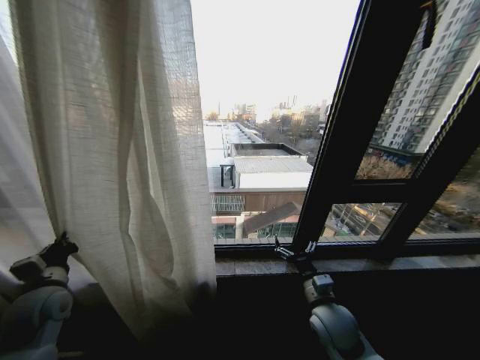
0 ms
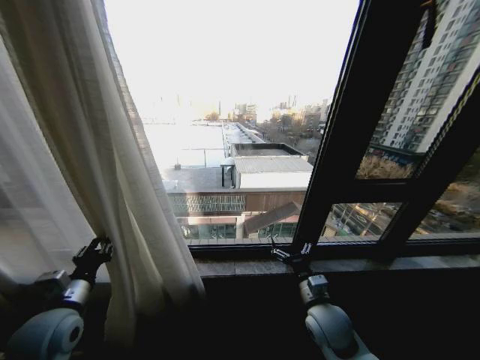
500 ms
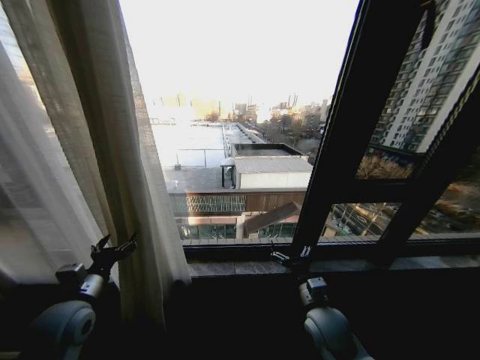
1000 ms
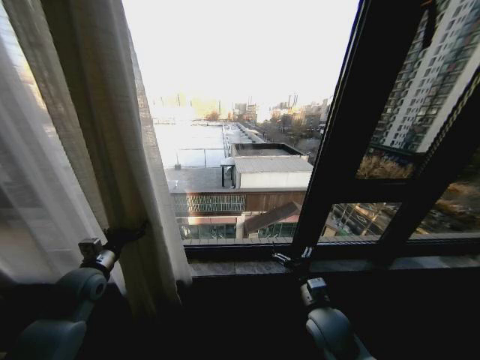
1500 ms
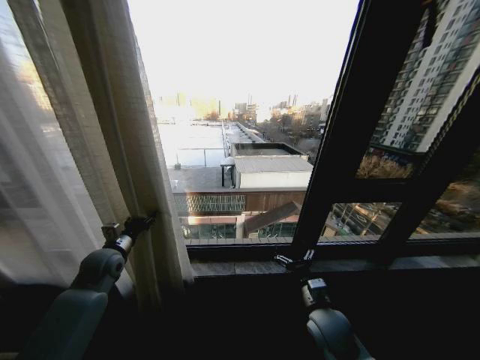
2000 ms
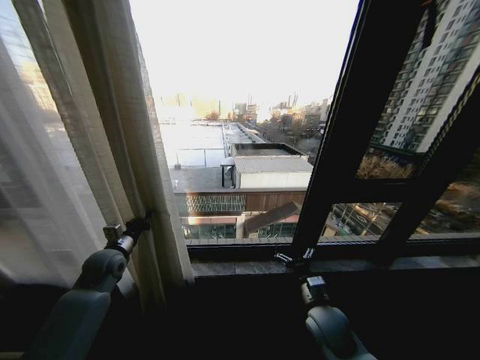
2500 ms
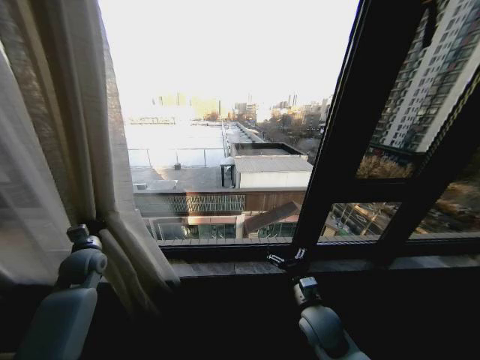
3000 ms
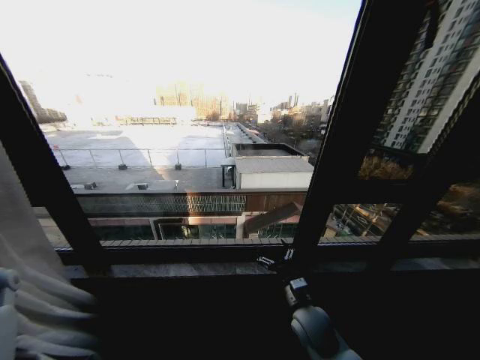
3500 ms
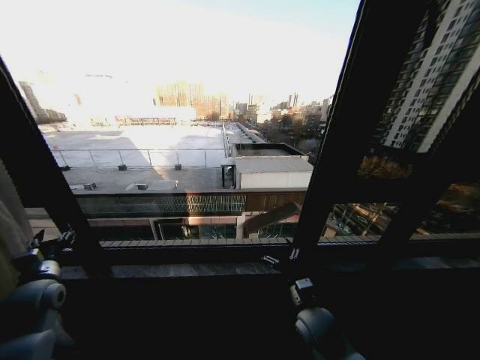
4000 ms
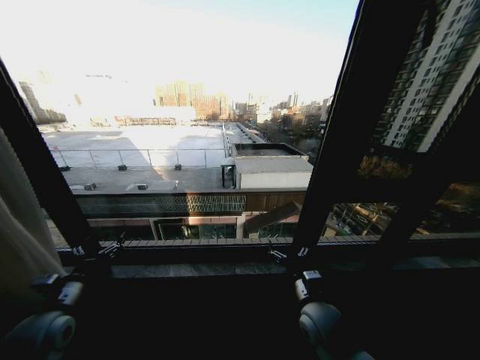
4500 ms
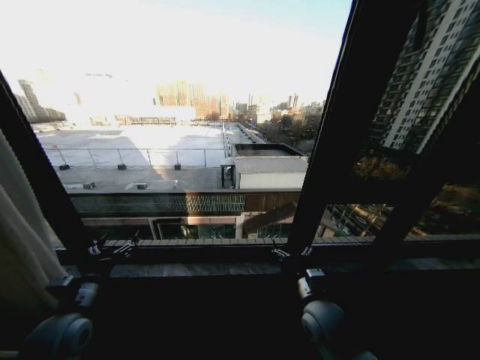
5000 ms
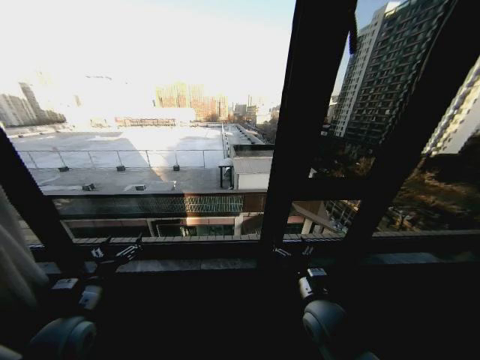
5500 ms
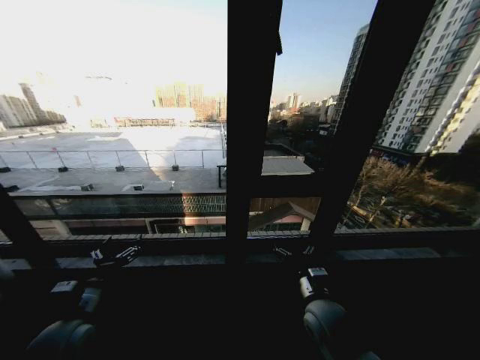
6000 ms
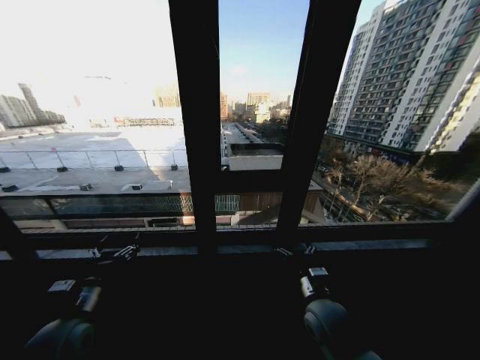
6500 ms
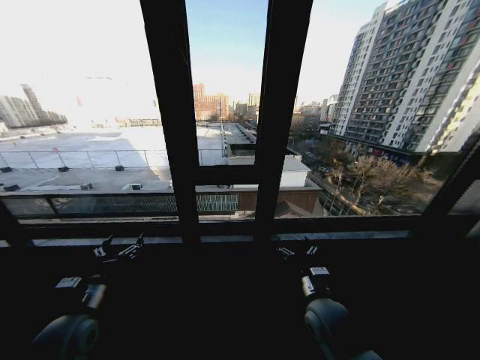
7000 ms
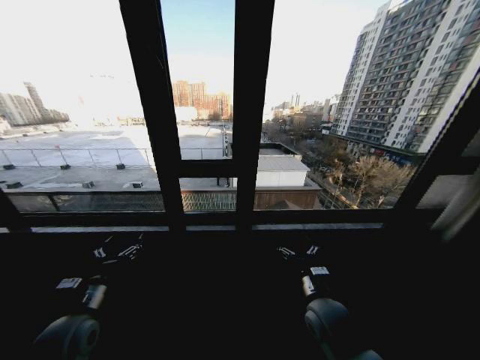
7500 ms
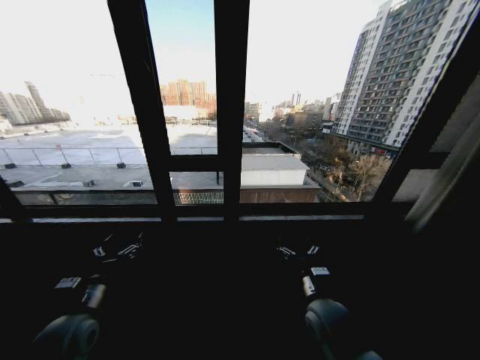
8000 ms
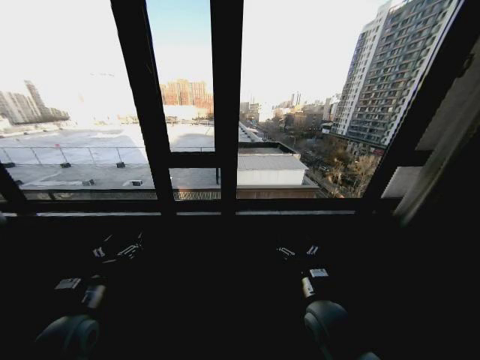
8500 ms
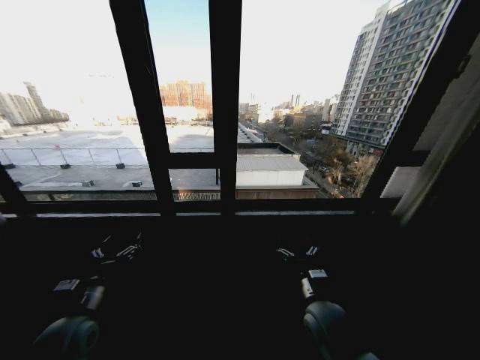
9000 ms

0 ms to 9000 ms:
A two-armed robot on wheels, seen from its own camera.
Task of the whole recording: Open the curtains by pulling them apart, changing their state from closed to fully open.
0 ms to 2000 ms: The left gripper travels forward and to the right by about 15 cm, and opens up.
2000 ms to 4500 ms: The left gripper shifts roughly 15 cm backward, moves approximately 25 cm to the left and comes back, and closes, then opens again.
4500 ms to 7000 ms: The left gripper shifts about 5 cm to the right.

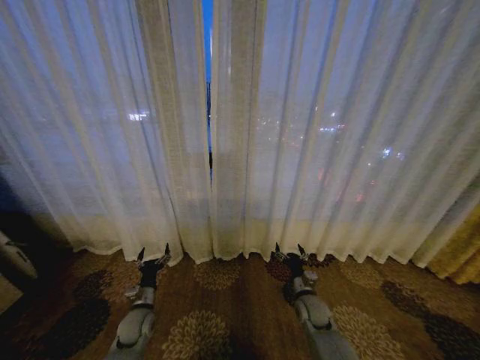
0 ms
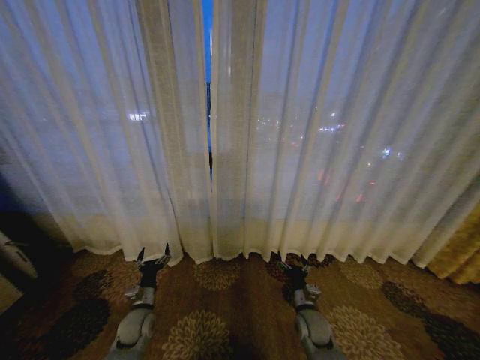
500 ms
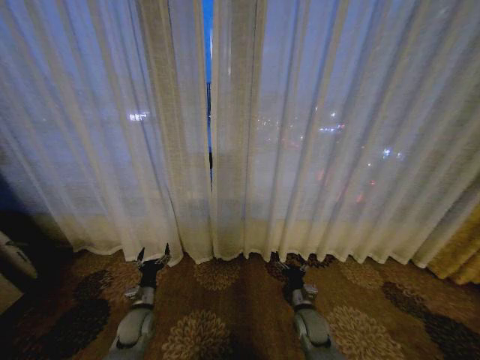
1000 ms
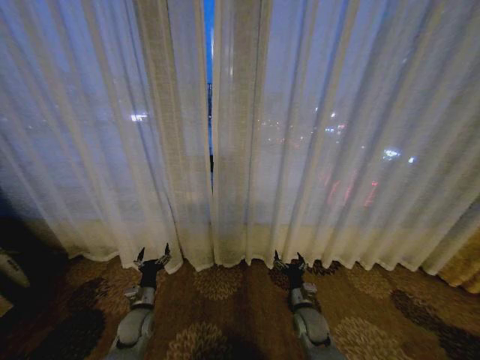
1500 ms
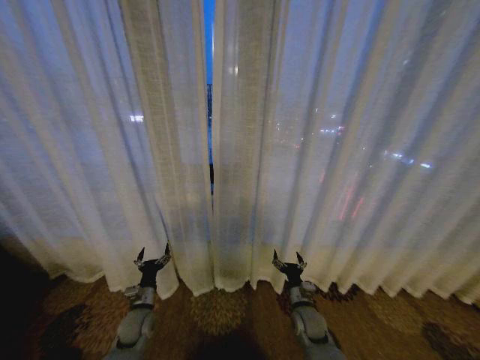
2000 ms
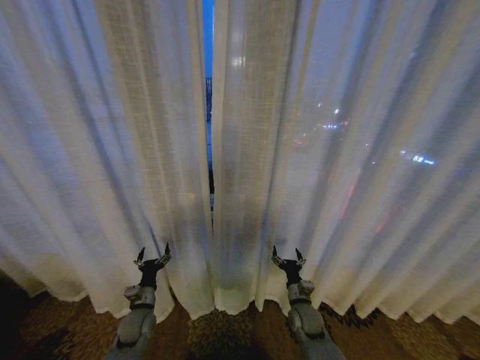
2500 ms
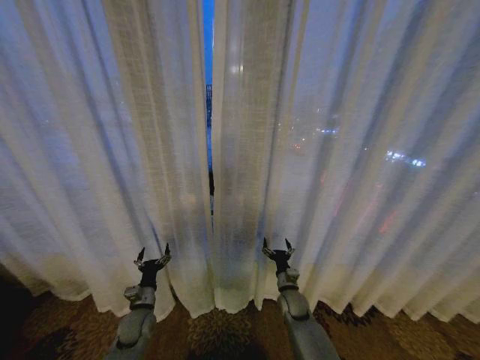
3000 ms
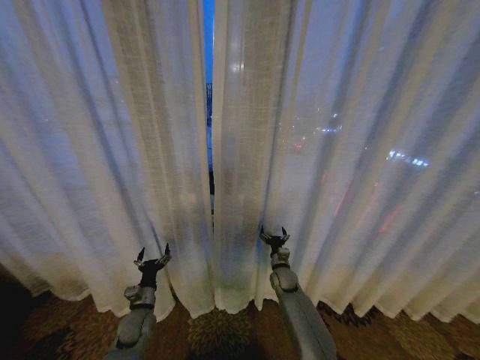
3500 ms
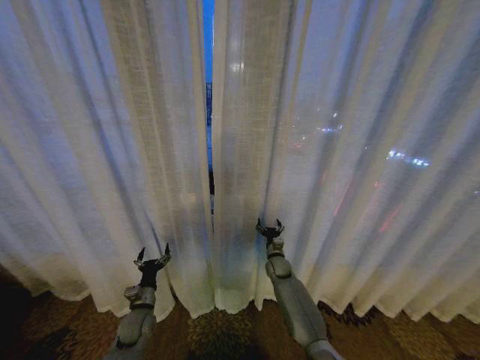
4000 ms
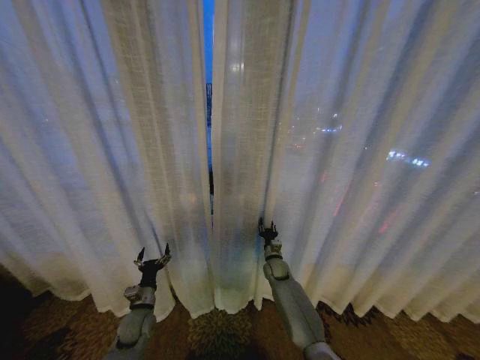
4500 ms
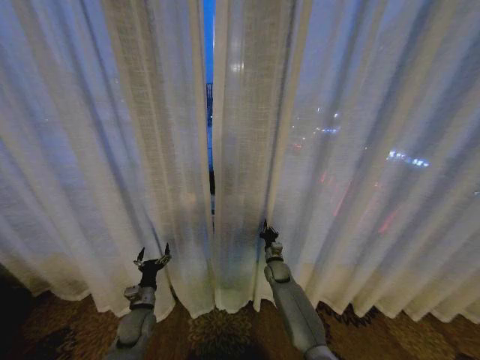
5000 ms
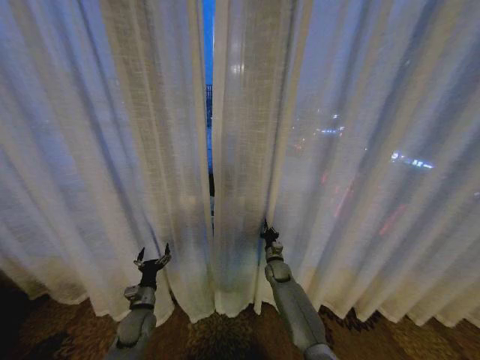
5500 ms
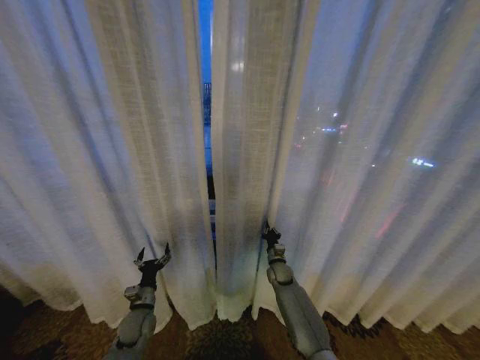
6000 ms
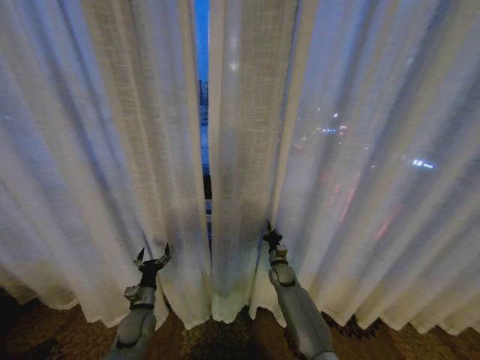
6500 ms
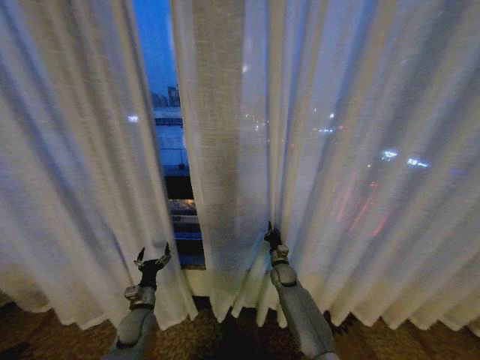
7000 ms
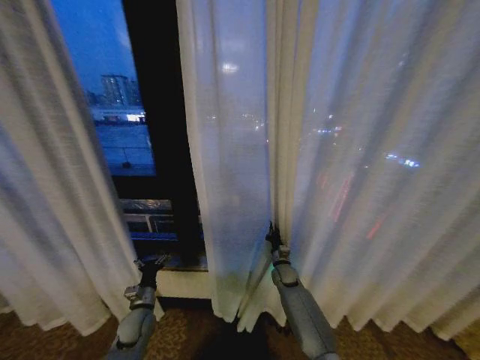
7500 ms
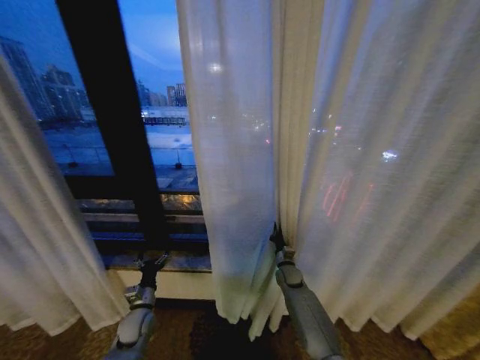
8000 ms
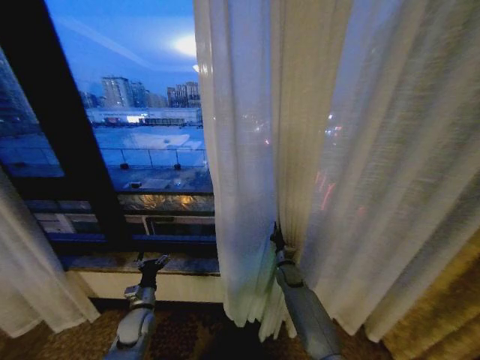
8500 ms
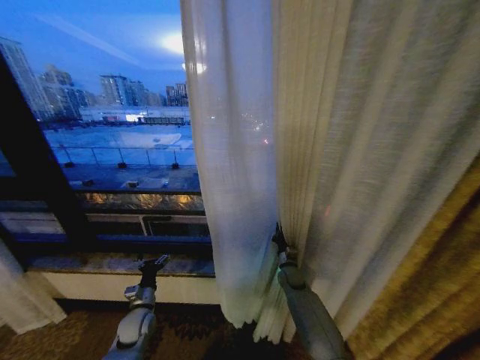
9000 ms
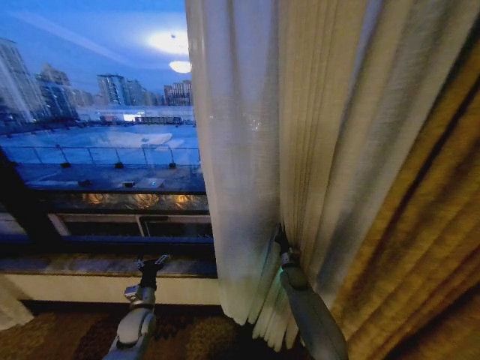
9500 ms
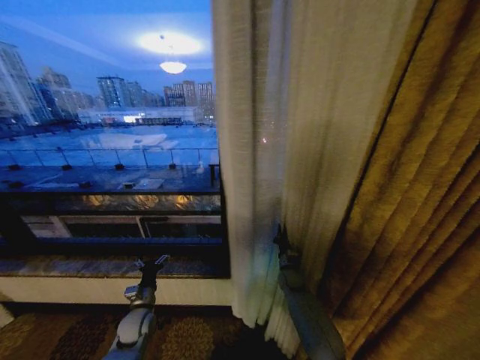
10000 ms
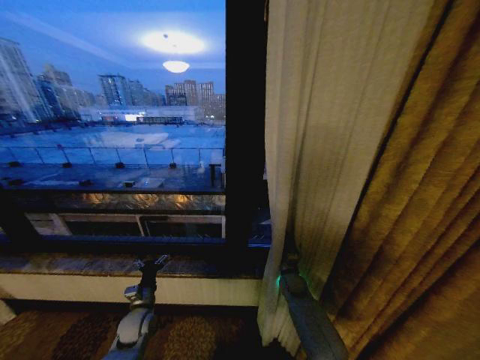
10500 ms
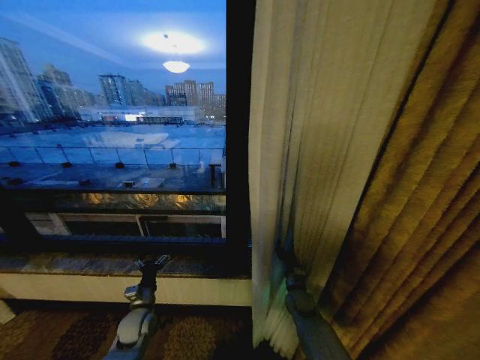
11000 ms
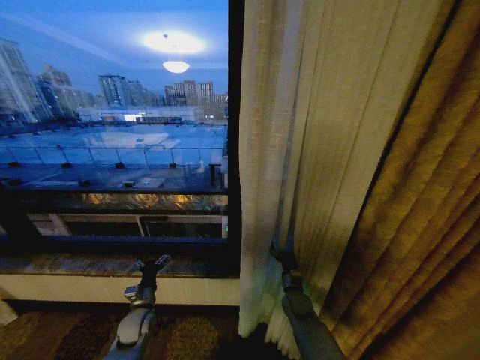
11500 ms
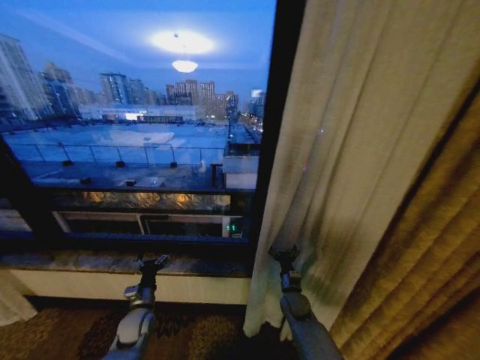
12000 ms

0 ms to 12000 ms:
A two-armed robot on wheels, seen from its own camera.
Task of the whole recording: Open the curtains by pulling them apart, changing their state from closed to fully open.
2000 ms to 4000 ms: The right gripper shifts roughly 20 cm forward.
4000 ms to 6000 ms: The right gripper closes up.
10000 ms to 12000 ms: The right gripper is displaced backward by roughly 10 cm, and opens up.

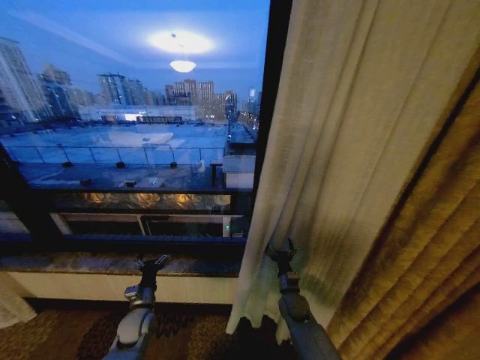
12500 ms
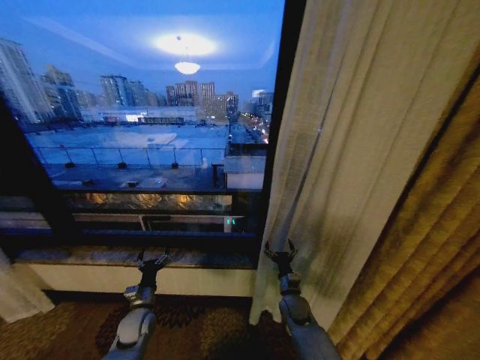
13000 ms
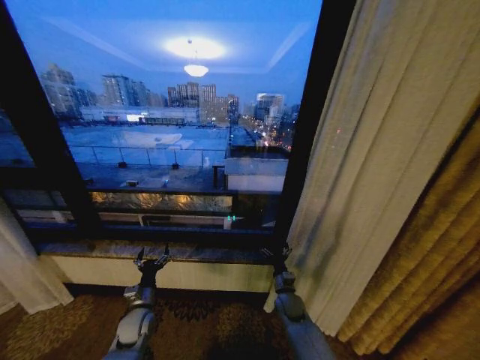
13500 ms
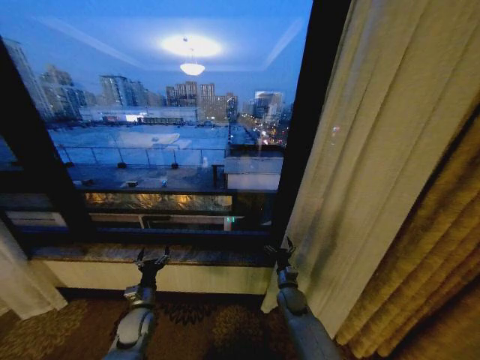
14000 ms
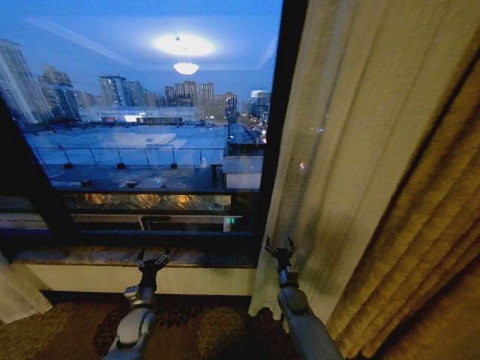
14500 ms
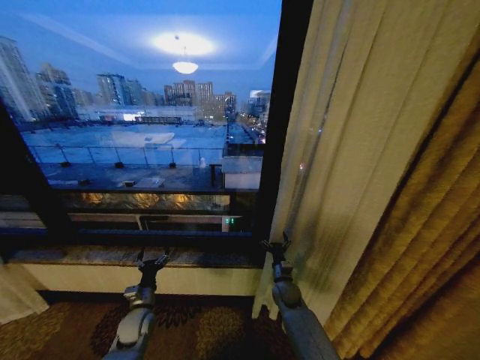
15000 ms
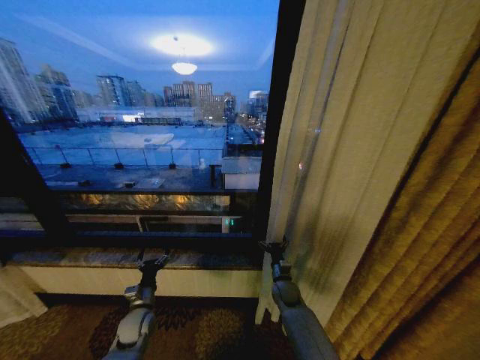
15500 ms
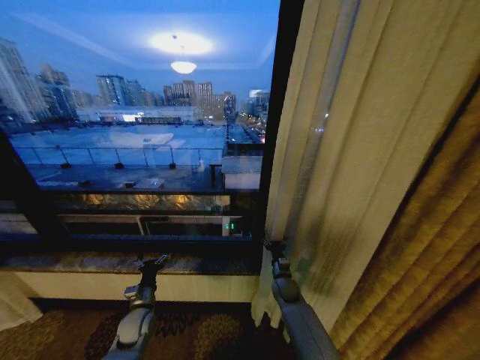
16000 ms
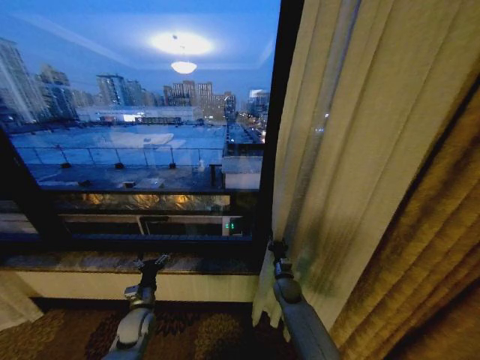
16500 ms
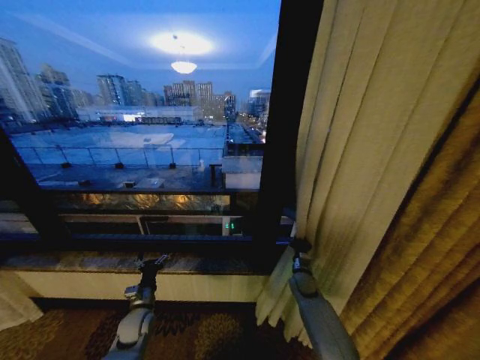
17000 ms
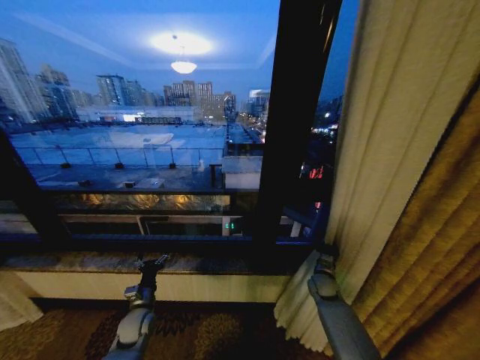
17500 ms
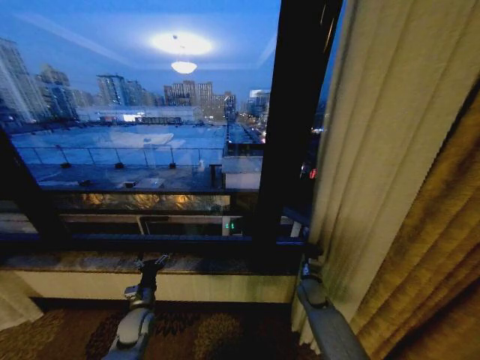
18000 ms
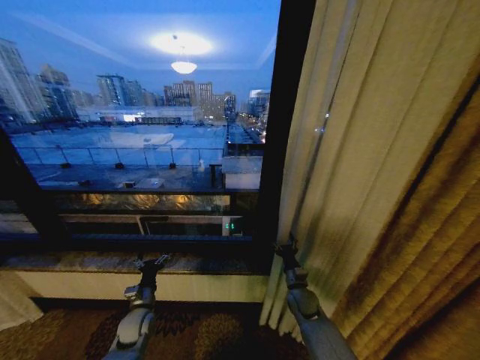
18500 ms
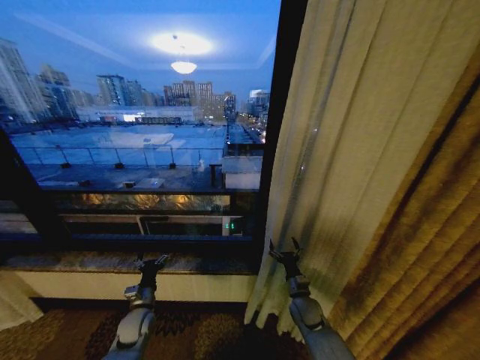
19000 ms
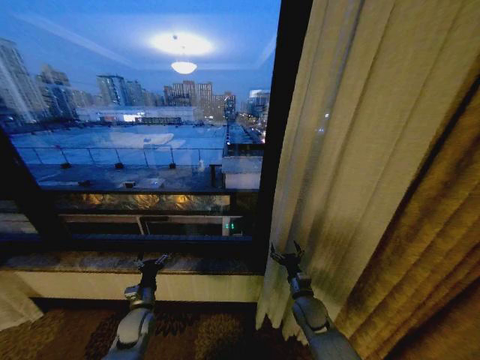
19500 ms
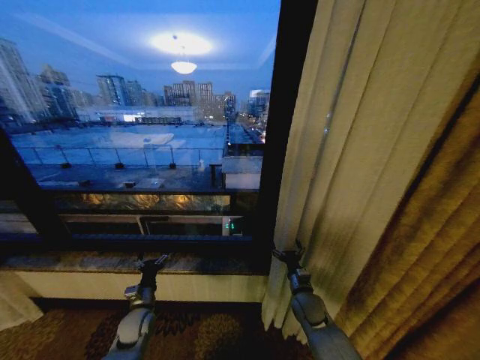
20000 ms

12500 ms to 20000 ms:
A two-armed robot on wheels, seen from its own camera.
Task of the whole recording: Open the curtains by pulling them apart, changing their state from closed to fully open.
14500 ms to 16500 ms: The right gripper closes its fingers.
16500 ms to 18000 ms: The right gripper heads to the right, covering some 10 cm.
18000 ms to 20000 ms: The right gripper travels backward and to the left by about 10 cm, and opens its fingers.
